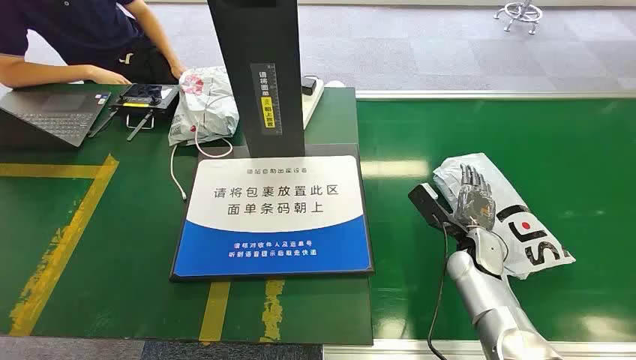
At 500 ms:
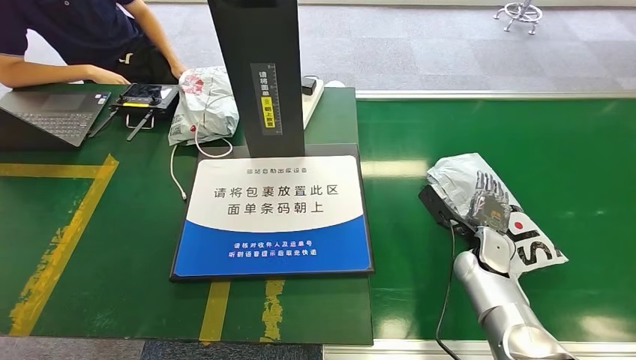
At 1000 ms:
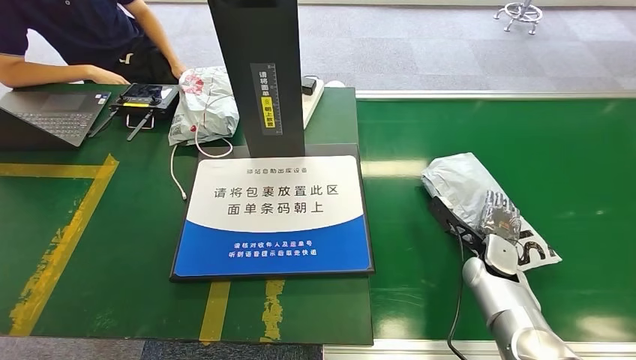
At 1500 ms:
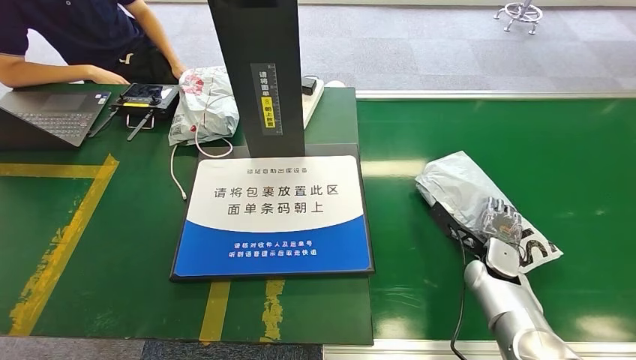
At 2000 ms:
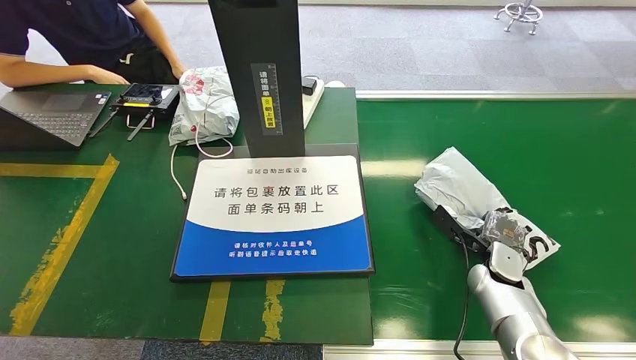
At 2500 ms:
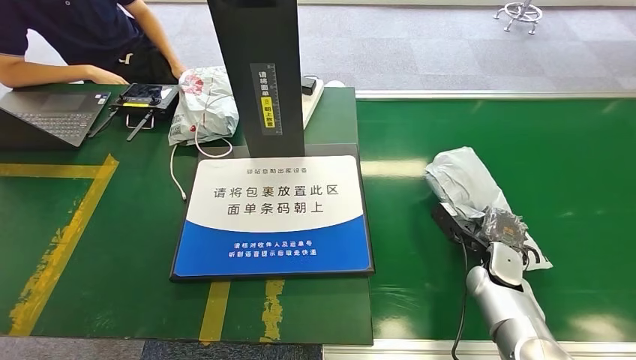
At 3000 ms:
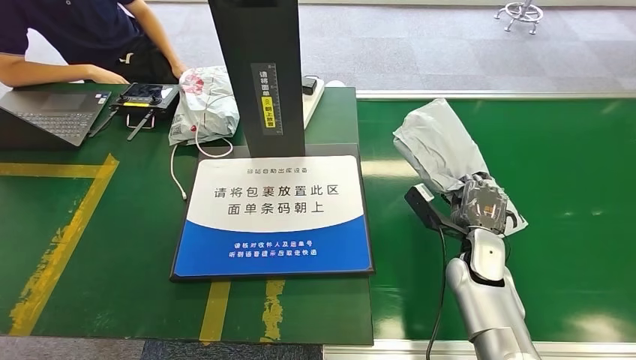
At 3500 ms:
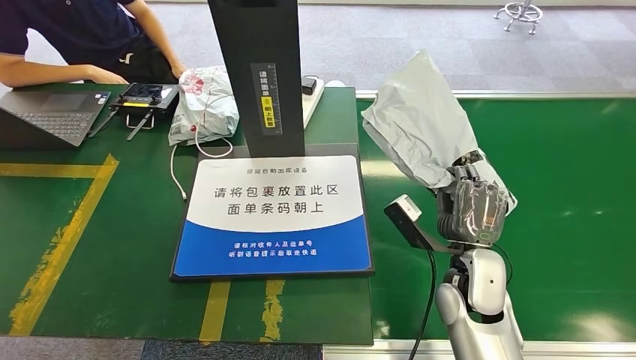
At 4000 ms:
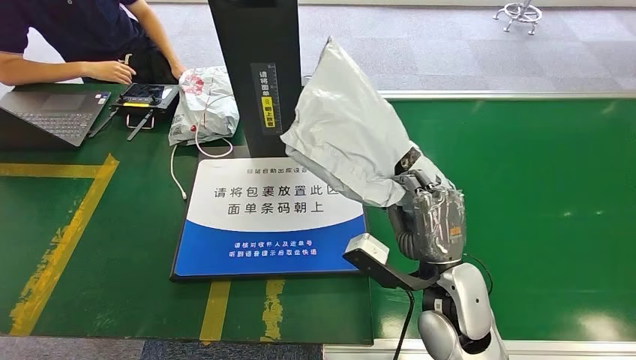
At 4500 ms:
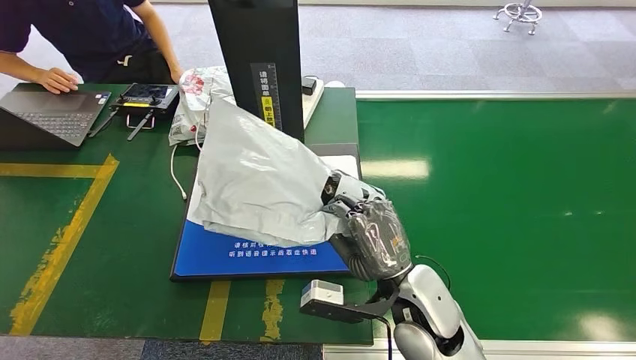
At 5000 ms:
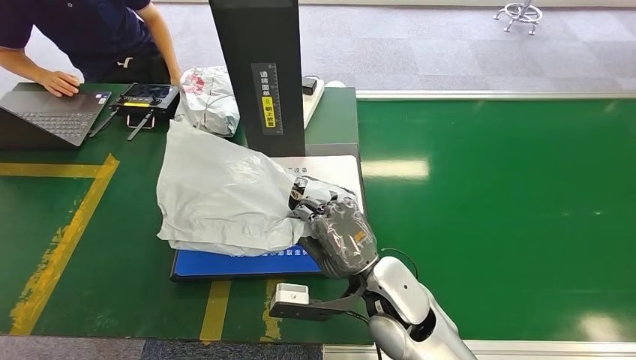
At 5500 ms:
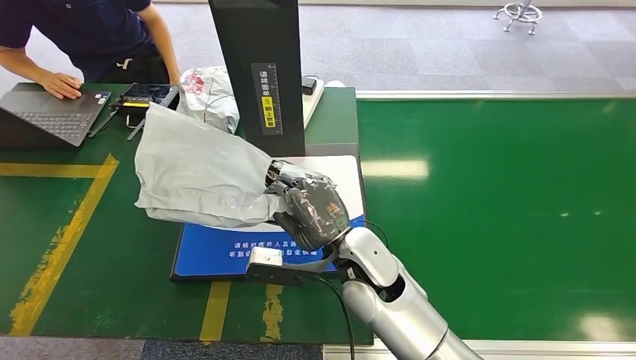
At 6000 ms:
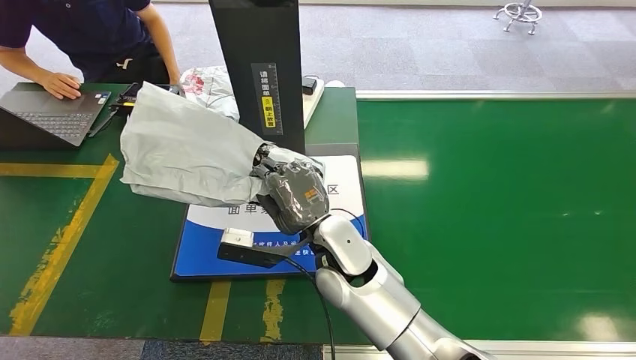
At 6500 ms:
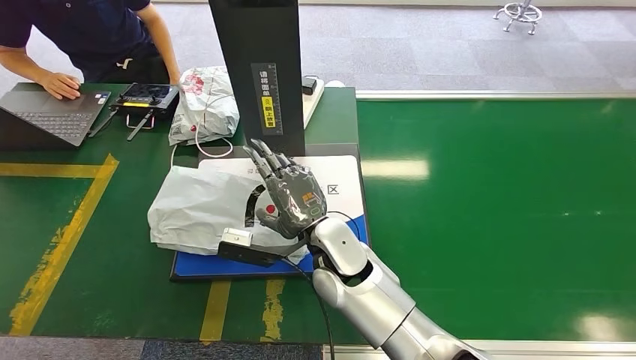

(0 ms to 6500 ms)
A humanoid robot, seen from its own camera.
Task of the whole recording: Weigh the package on the weighing device and place it in the left basket.
Step, 0 ms - 2500 ms: Pick up the package from the conveyor belt.
Step, 3500 ms - 6500 ms: Place the package onto the inbound machine.
4500 ms - 6500 ms: The right hand shifts some 15 cm to the left and forward.

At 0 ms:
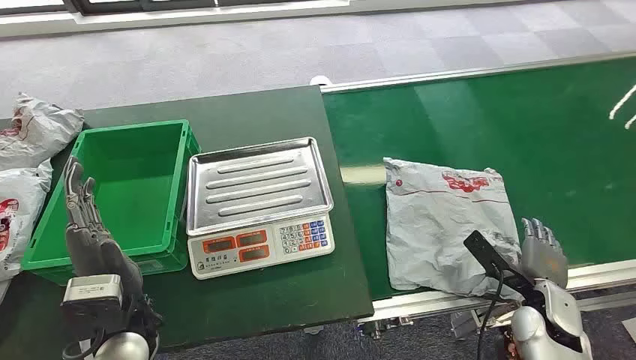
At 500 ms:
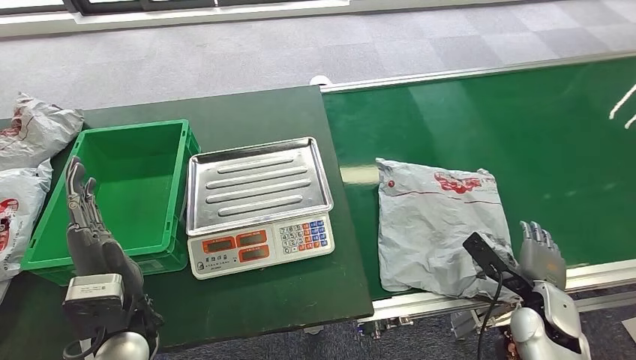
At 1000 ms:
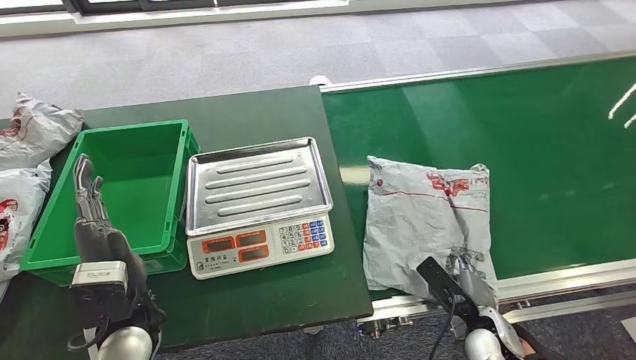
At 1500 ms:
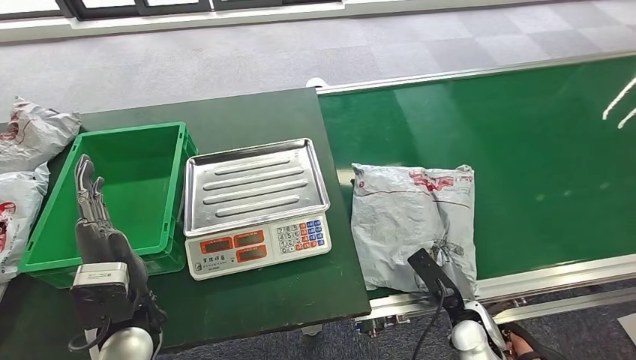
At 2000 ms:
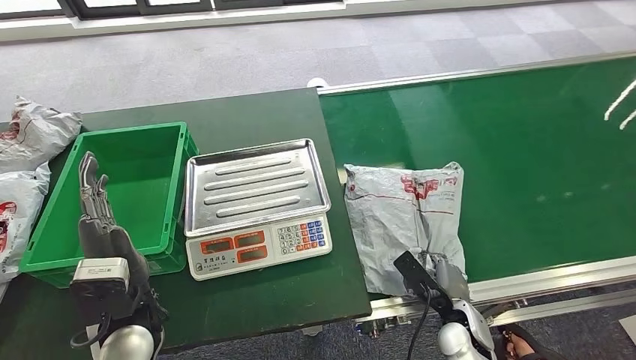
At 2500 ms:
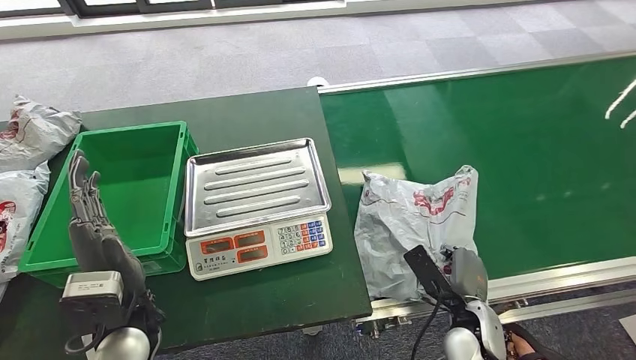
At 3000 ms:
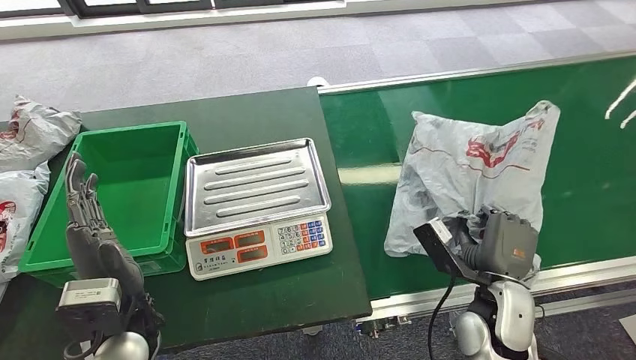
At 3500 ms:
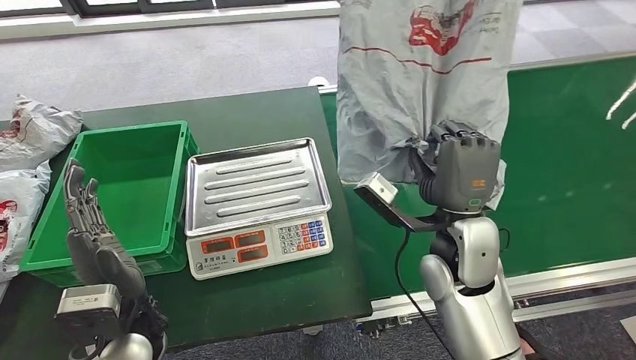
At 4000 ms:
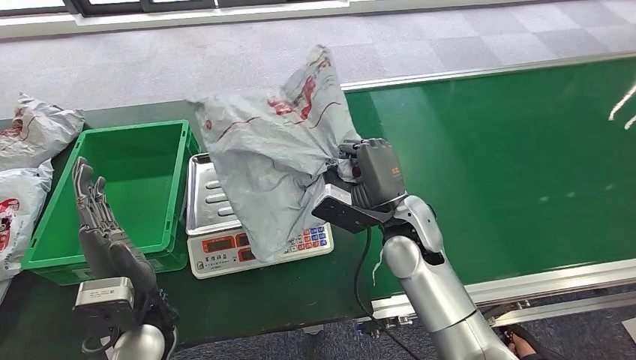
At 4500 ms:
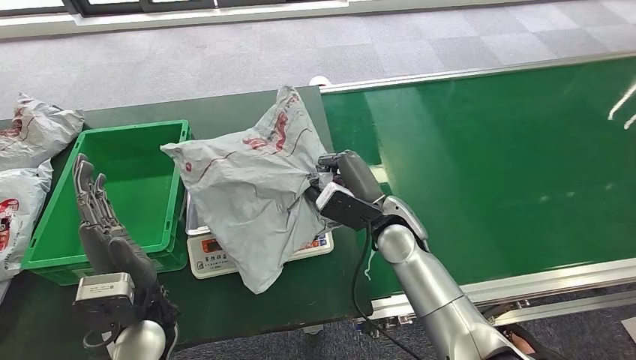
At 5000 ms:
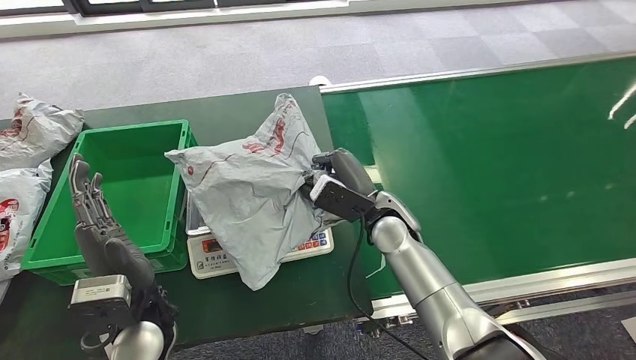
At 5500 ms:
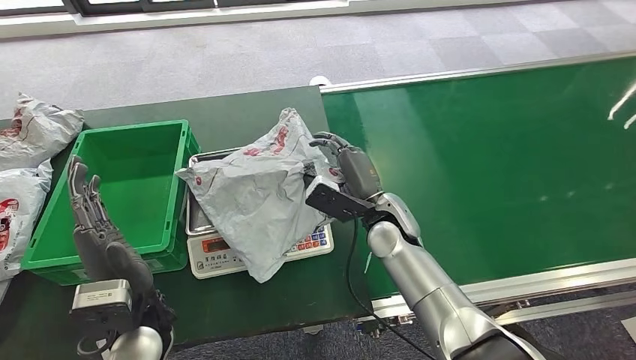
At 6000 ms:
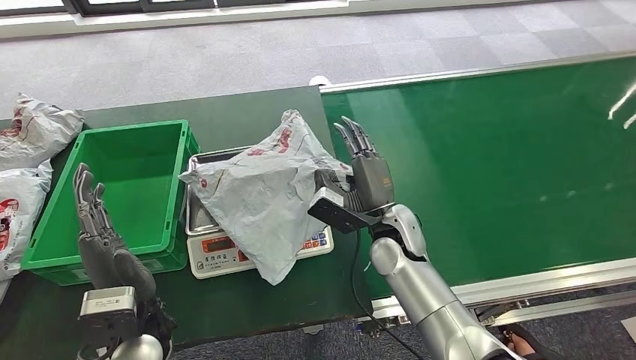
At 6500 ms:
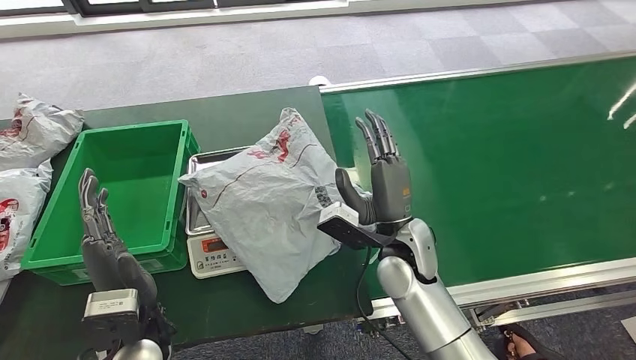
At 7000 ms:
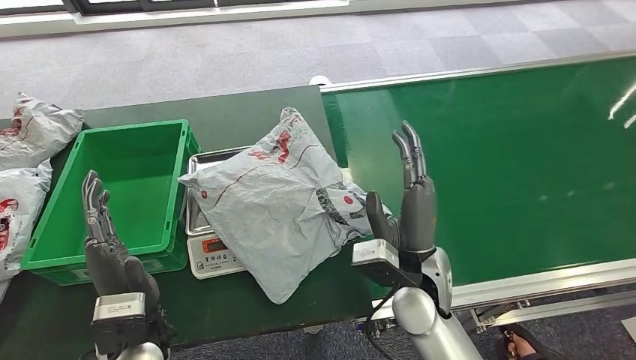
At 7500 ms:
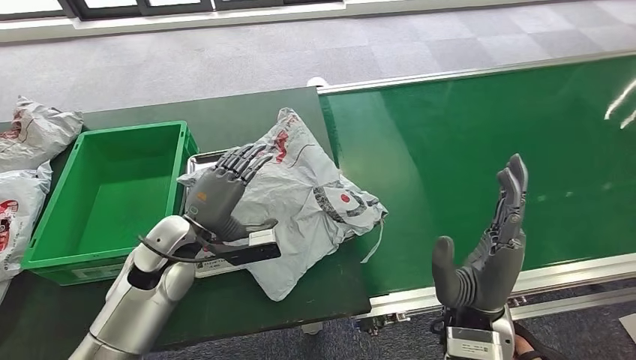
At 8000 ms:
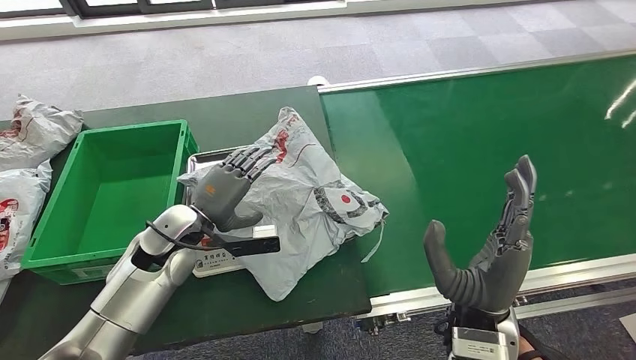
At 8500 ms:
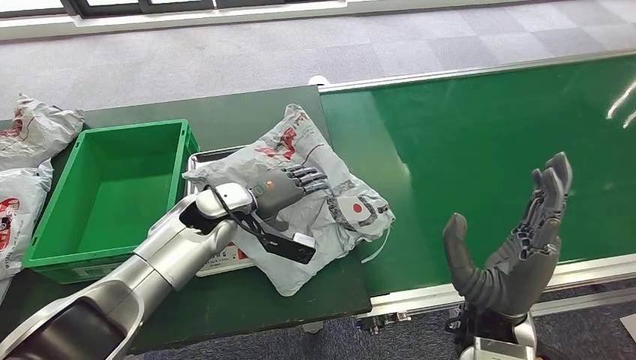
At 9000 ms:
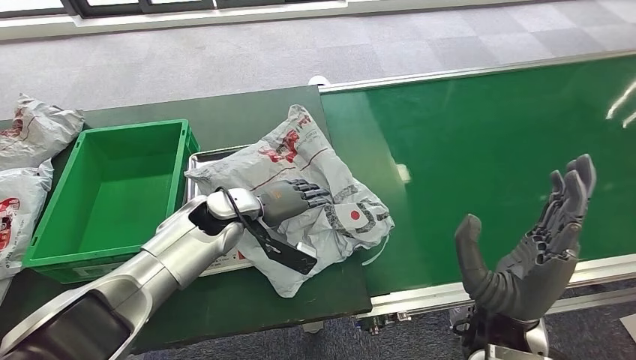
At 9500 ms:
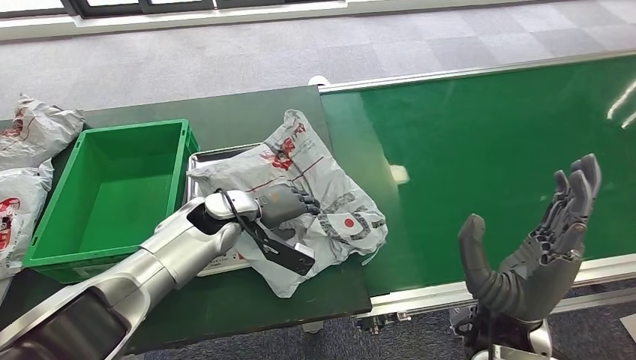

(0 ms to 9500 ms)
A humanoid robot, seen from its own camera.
Task of the whole recording: Weigh the package on the weighing device and place it in the left basket.
Step, 0 ms - 3000 ms: Pick up the package from the conveyor belt.
Step, 3500 ms - 6500 ms: Place the package onto the inbound machine.
4000 ms - 5500 ms: The right hand moves about 5 cm.

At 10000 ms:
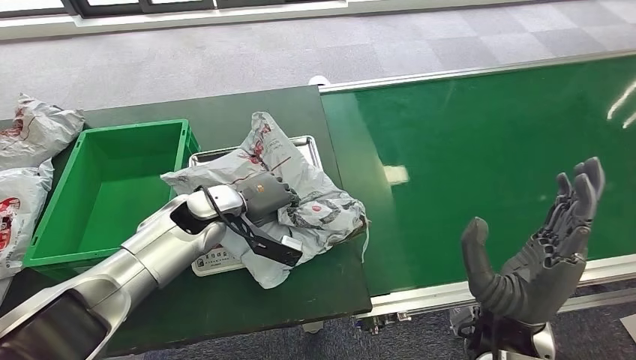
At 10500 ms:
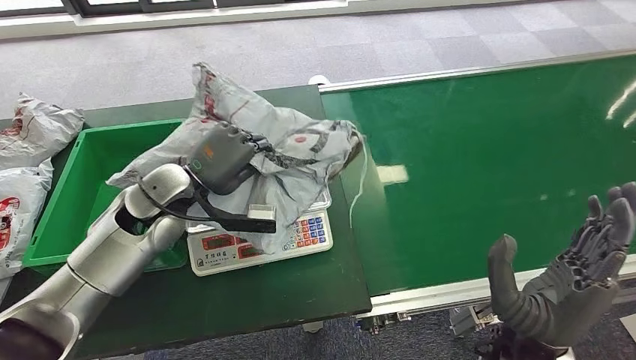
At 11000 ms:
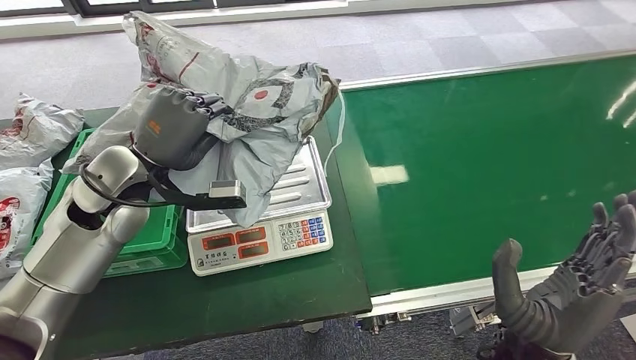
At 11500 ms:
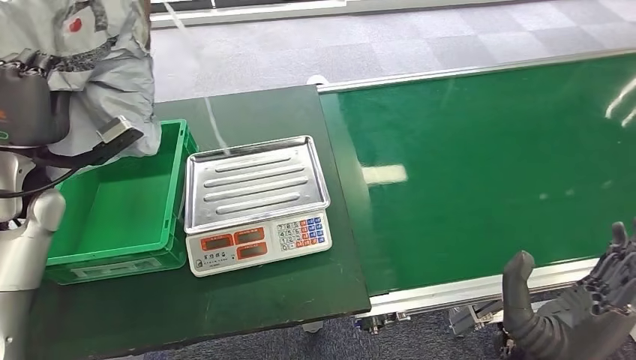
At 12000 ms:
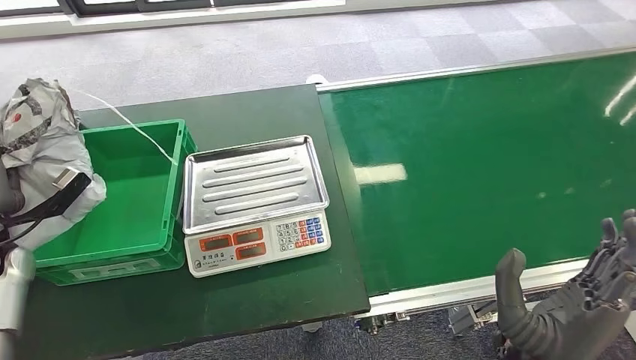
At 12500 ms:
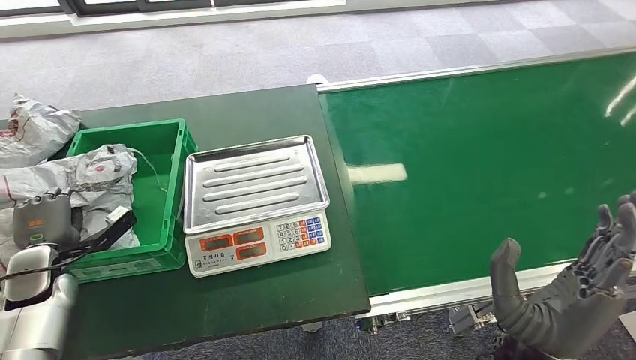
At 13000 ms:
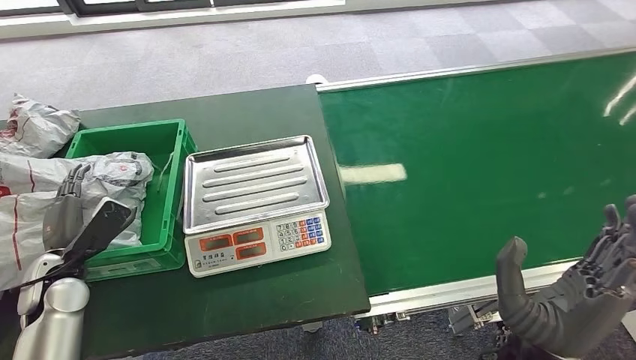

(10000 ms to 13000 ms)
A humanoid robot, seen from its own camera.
Task of the whole recording: Weigh the package on the weighing device and place it in the left basket.
Step, 11500 ms - 13000 ms: Place the package into the parcel locker.
